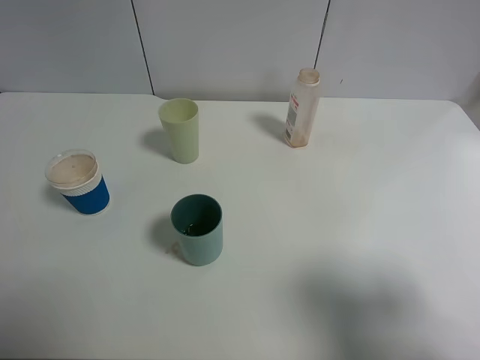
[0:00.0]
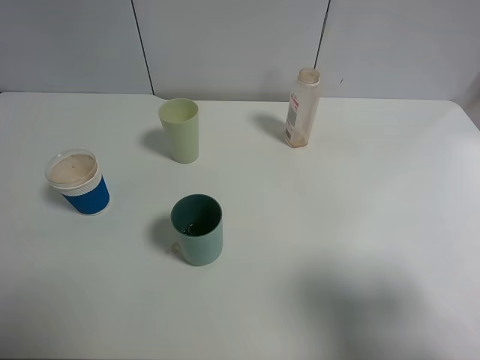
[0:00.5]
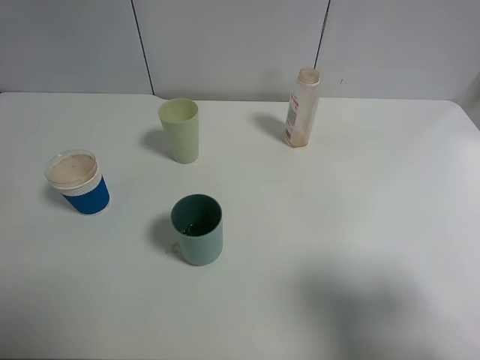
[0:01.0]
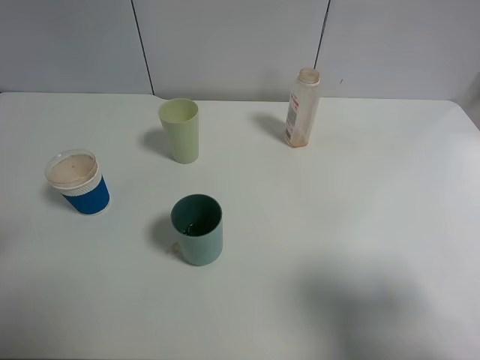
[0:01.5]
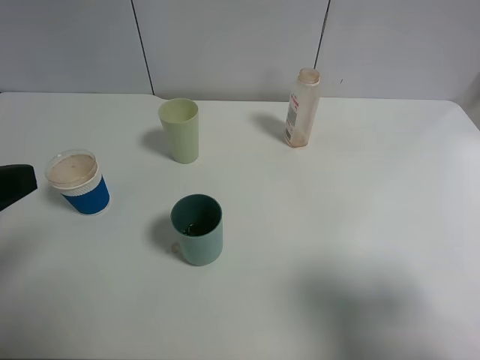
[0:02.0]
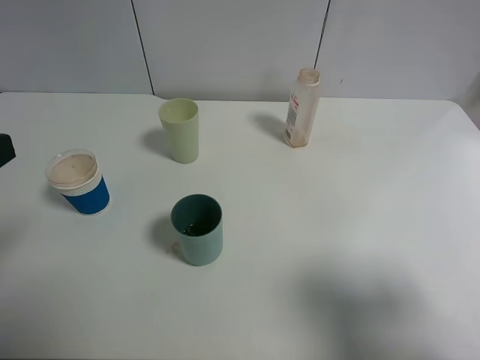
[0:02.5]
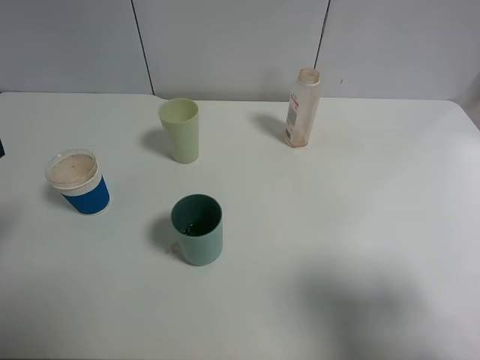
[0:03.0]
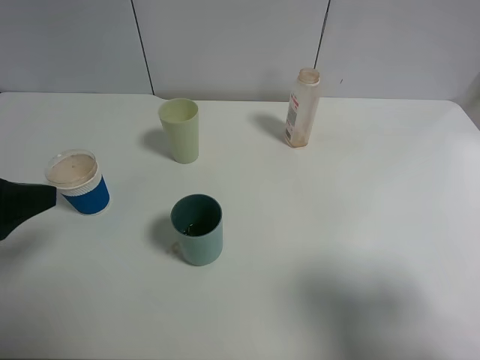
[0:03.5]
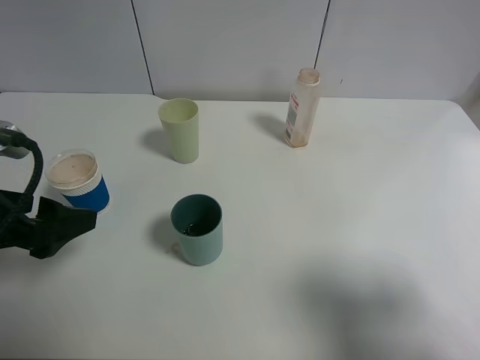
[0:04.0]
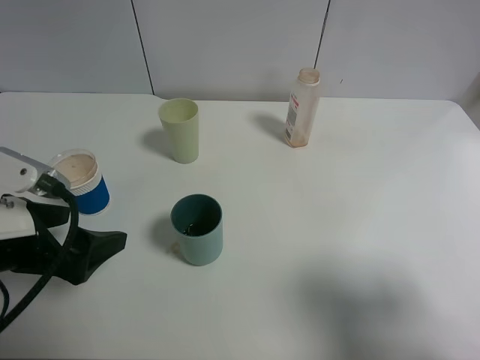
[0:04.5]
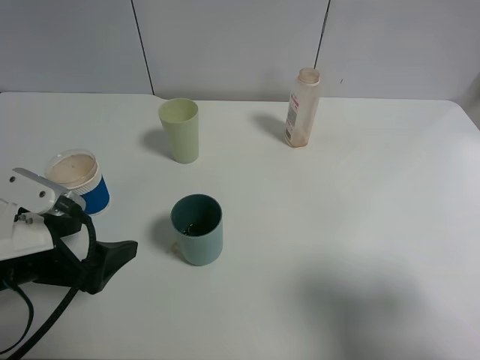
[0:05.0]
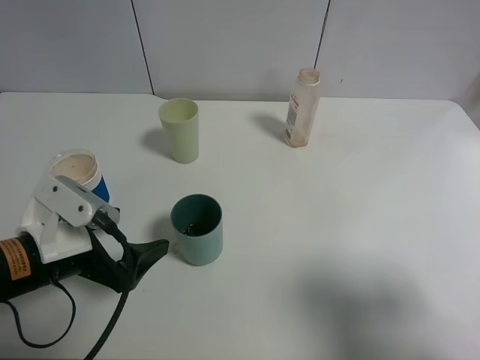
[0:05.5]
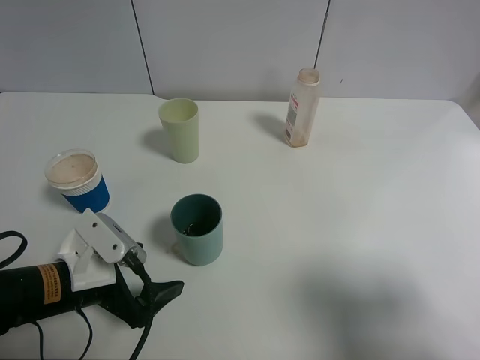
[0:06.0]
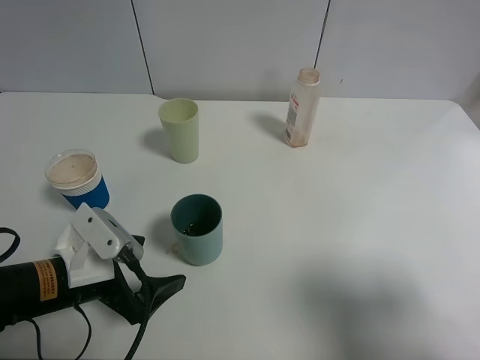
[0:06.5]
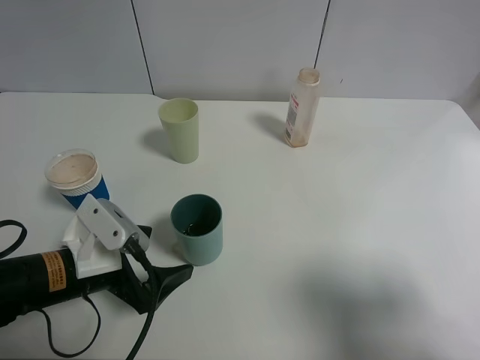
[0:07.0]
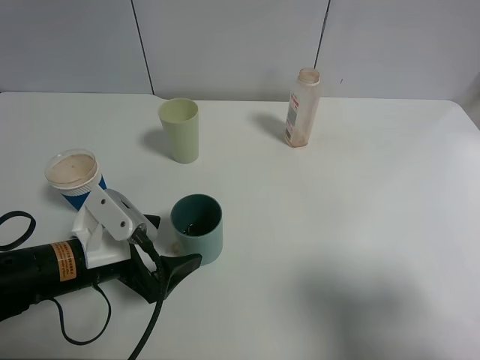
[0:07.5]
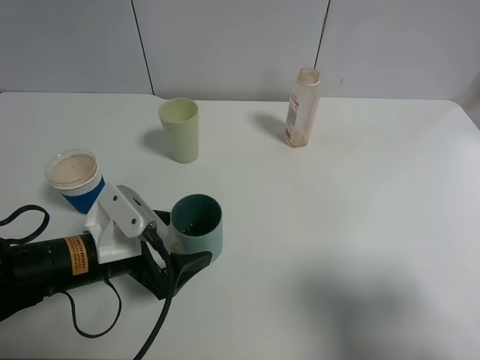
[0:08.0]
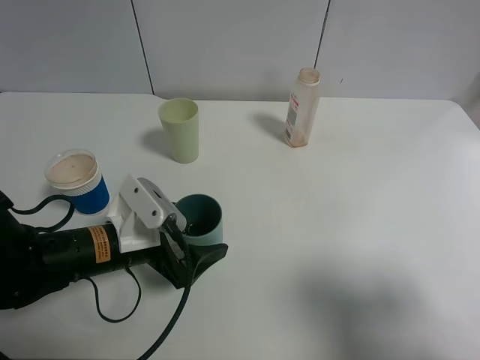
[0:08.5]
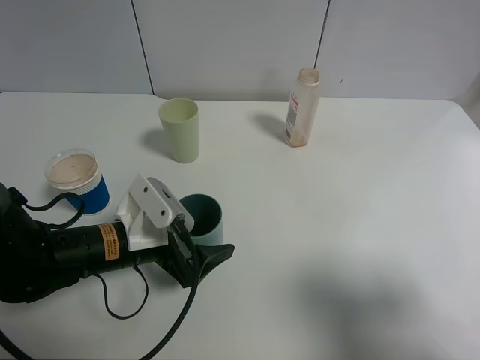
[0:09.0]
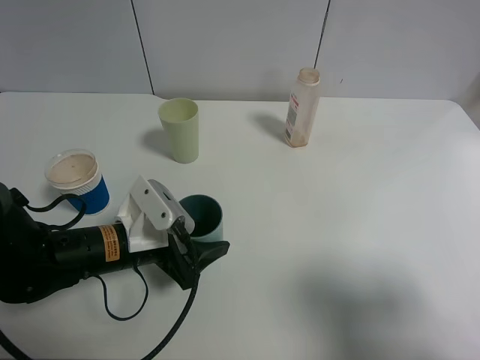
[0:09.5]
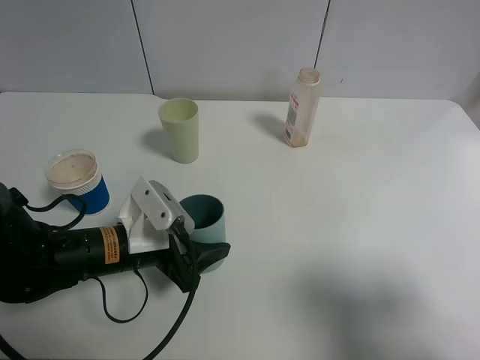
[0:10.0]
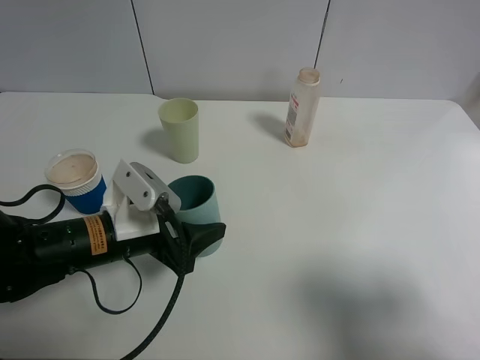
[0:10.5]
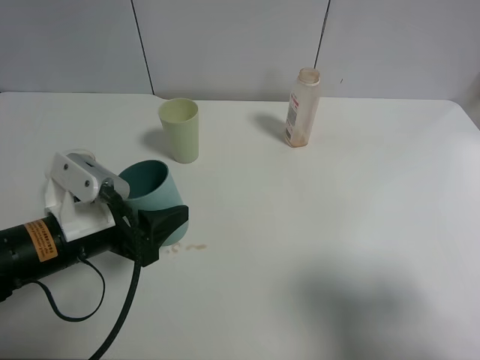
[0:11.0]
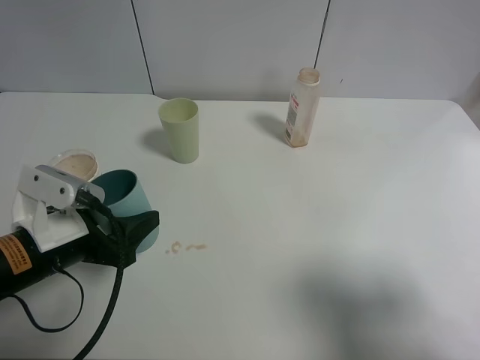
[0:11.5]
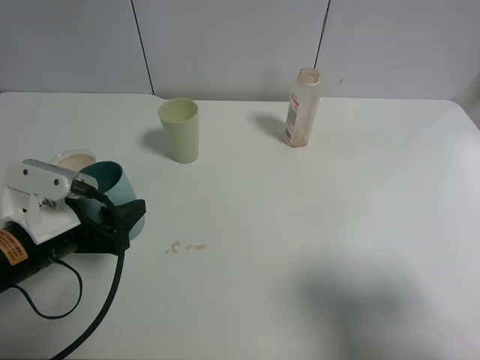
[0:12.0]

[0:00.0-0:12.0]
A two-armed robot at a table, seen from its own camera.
Task of the whole recording: use a clamp to hold the bottle of the drink, pour the beverage into a random cup, then clamp the cup containing the drink and pour the drink into another random cup.
Step, 0:00.0 to 0:10.5: Pick up the blue plastic cup bottle with left gripper.
0:00.0 to 0:02.0: The left gripper heads forward, covering some 10 cm.
0:02.0 to 0:04.0: The left gripper heads downward and forward, covering approximately 10 cm.
0:04.0 to 0:06.0: The left gripper moves downward and to the right, roughly 15 cm.
0:06.0 to 0:08.0: There are only small adjustments of the grippers.
0:08.0 to 0:10.0: The left gripper closes up.
0:10.0 to 0:12.0: The left gripper moves to the left, approximately 10 cm.

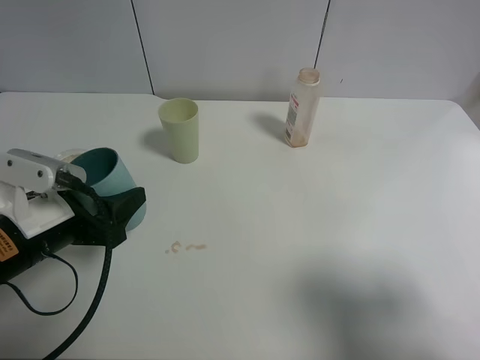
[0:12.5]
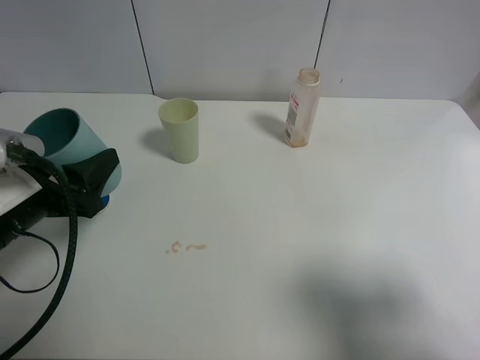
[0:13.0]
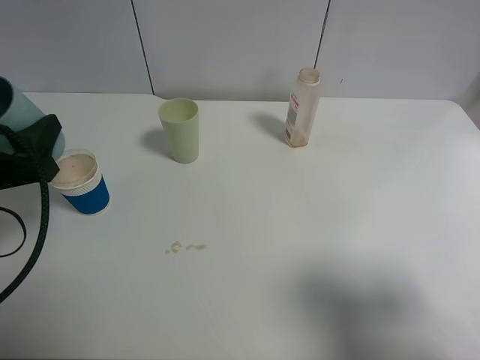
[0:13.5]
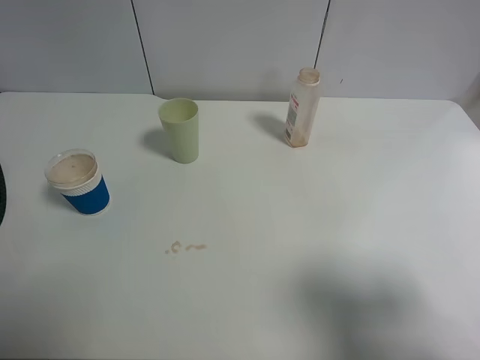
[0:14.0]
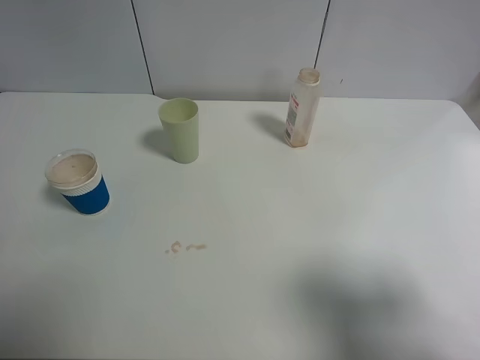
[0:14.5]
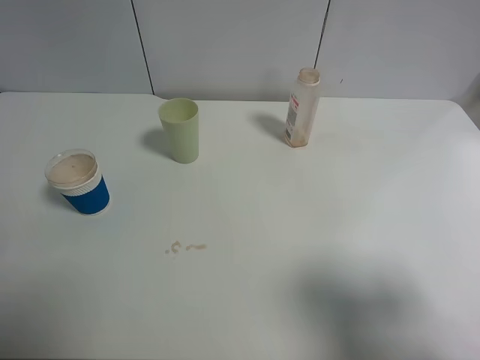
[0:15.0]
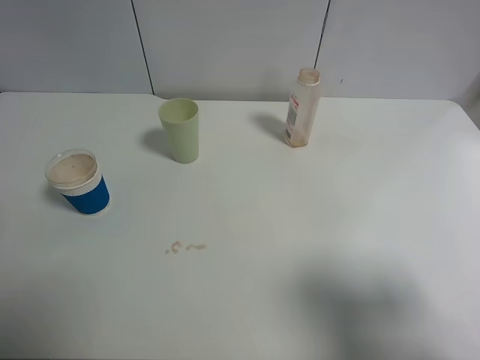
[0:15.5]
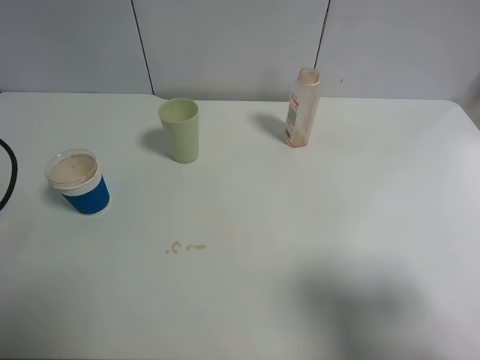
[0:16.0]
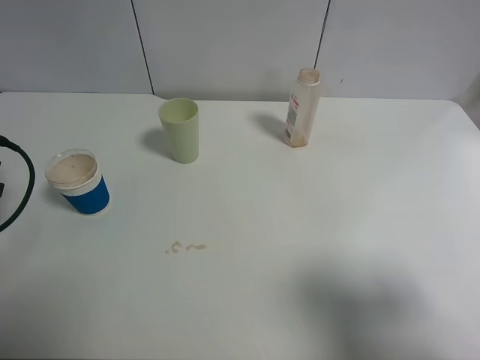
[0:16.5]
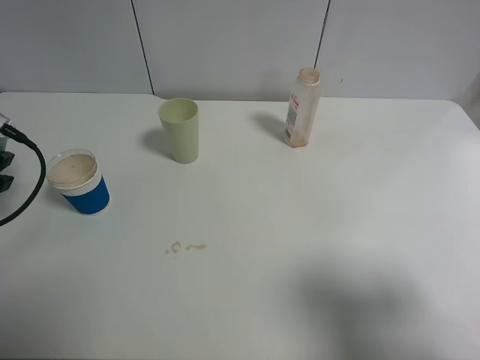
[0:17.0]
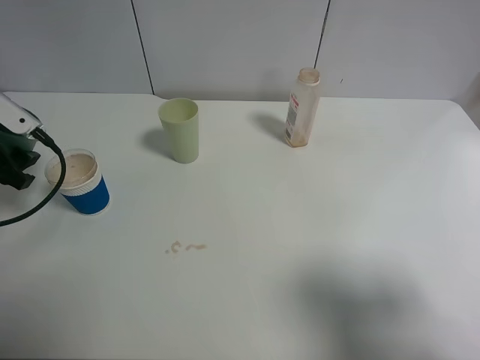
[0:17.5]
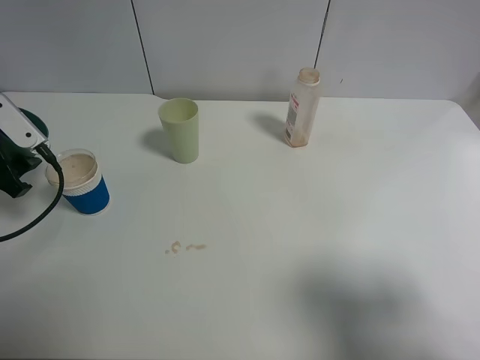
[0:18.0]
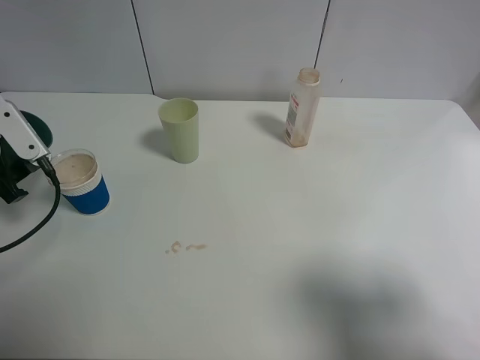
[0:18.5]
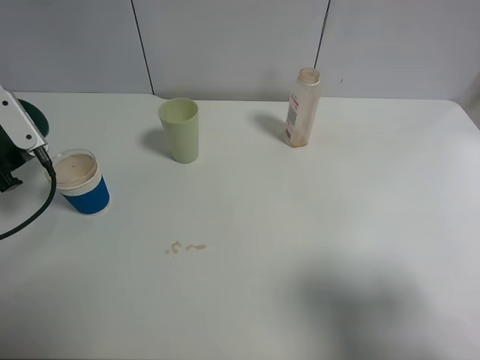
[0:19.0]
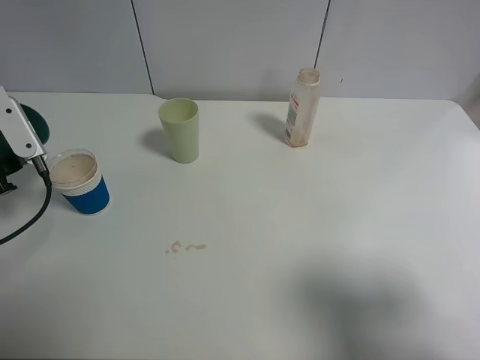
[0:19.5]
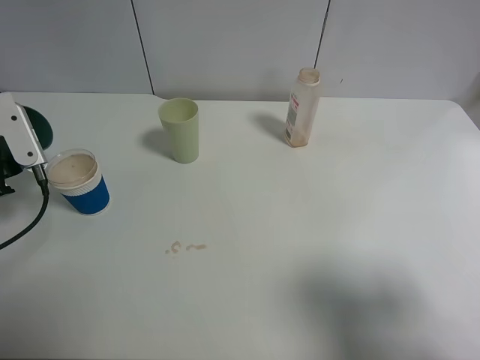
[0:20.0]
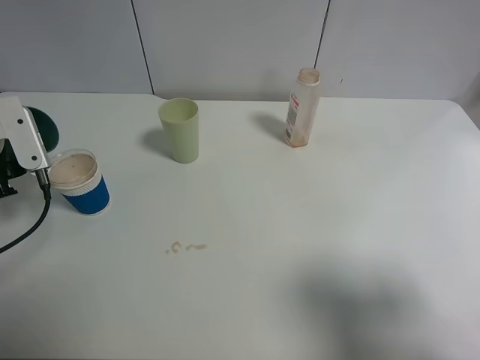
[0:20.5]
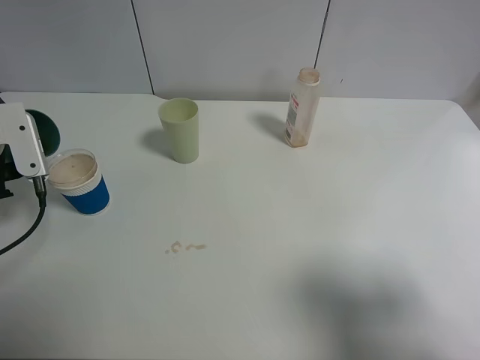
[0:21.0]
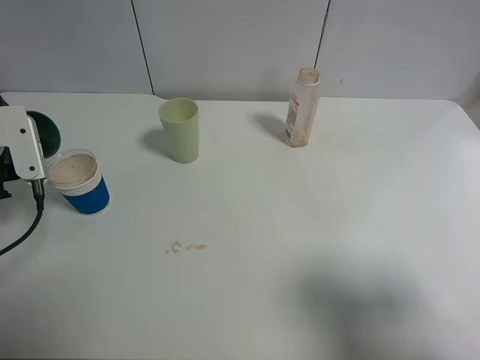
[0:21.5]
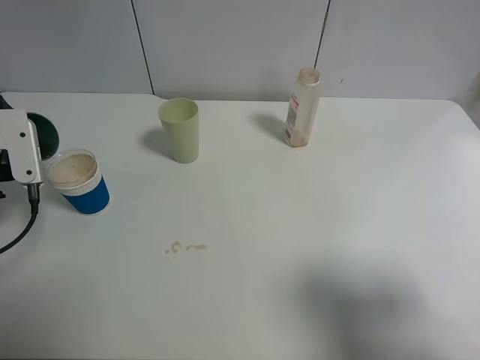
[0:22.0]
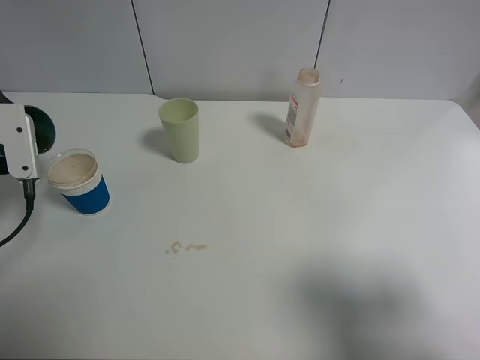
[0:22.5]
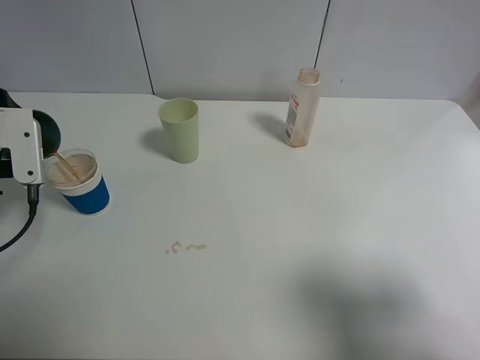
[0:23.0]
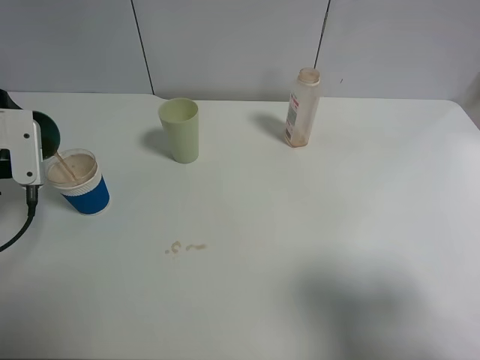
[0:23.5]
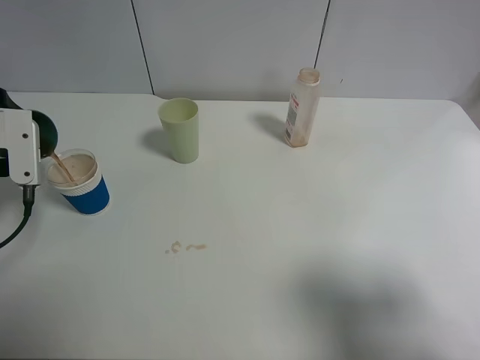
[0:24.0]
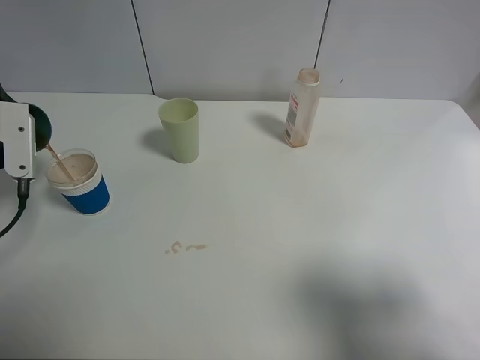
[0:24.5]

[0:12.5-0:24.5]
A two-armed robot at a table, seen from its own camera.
Task of the whole recording: use a clamp to hold the bottle of the drink, pour the beverage into a random cup, then clamp the cup containing the drink and pour the drink into another random cup.
0:12.5 to 0:14.5: The left gripper goes approximately 20 cm to the left and upward.
0:16.5 to 0:18.5: The left gripper goes some 5 cm forward.
0:18.5 to 0:20.5: There are only small adjustments of the grippers.
0:20.5 to 0:22.5: The grippers move only a little.
0:22.5 to 0:24.5: The grippers stay close to where they were, moving slightly.

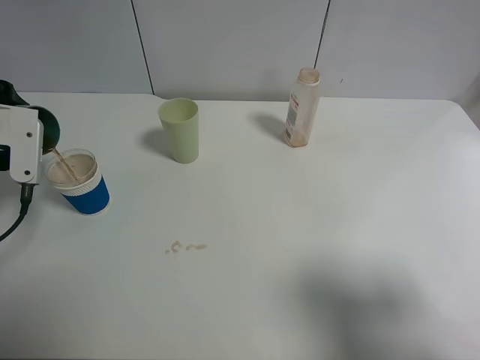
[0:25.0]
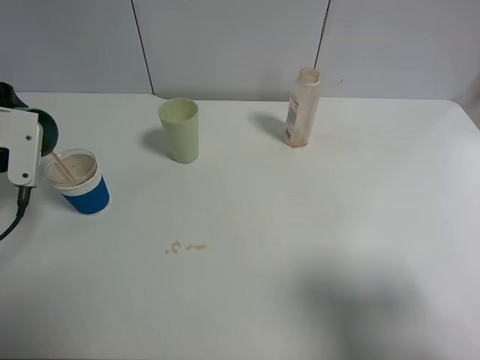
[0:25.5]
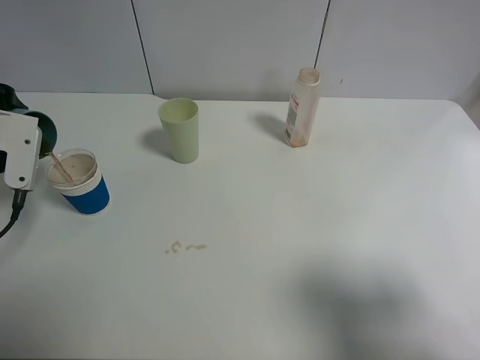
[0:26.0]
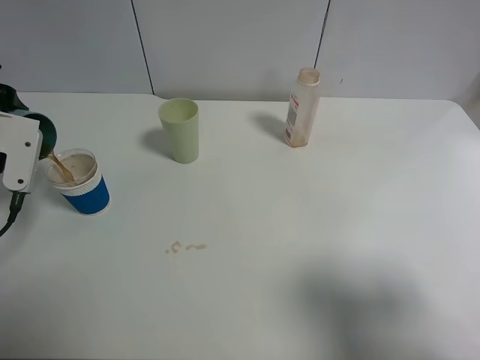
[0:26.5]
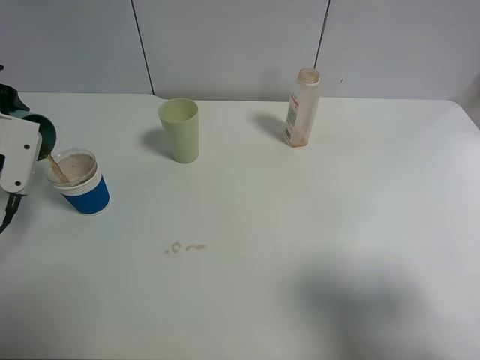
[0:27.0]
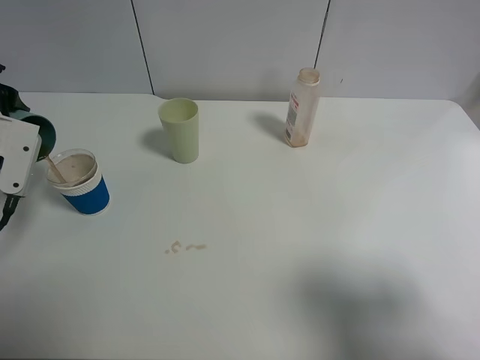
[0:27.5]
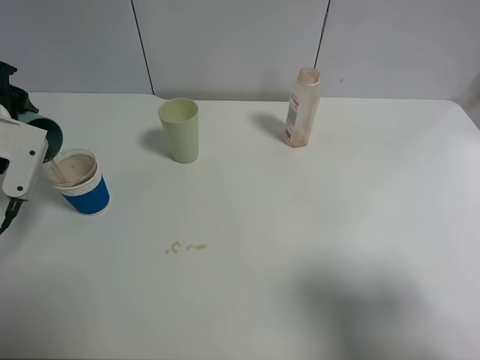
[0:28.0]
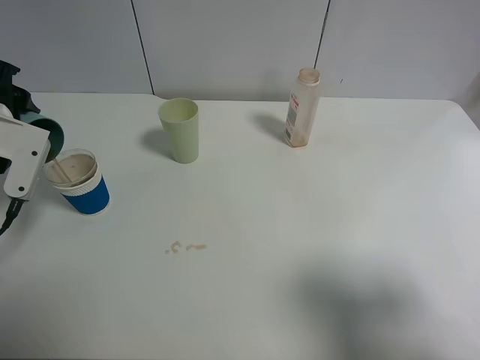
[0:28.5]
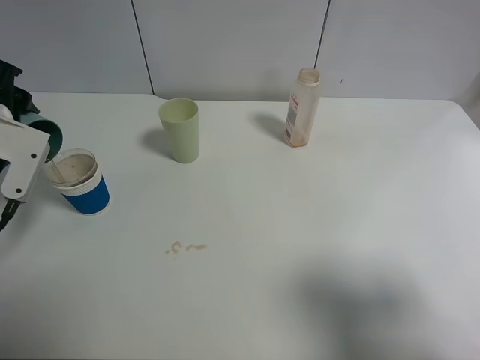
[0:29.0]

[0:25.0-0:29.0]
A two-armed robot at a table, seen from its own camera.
Task of the whole recording: use a clamp to hold the bottle of the drink, pour the beverage into a random cup, then clamp the cup containing the drink and pour the drink into another random cup.
0:25.0 to 0:29.0: The grippers stay close to where they were, moving slightly.
